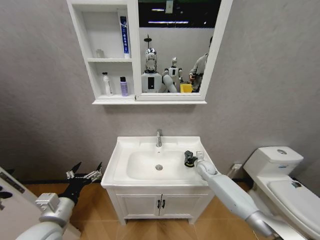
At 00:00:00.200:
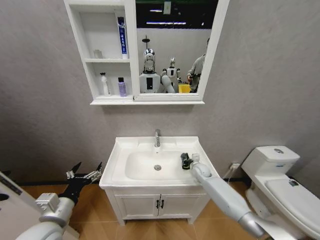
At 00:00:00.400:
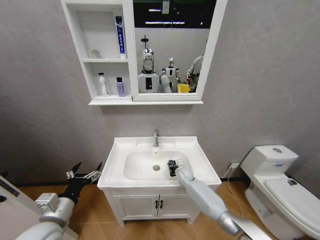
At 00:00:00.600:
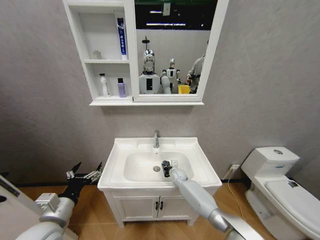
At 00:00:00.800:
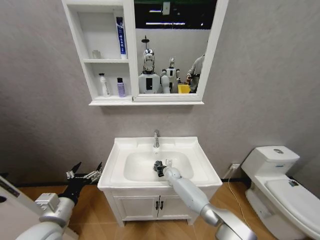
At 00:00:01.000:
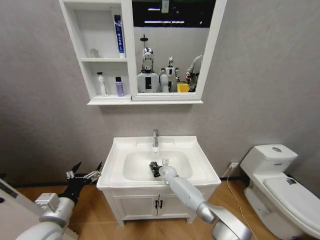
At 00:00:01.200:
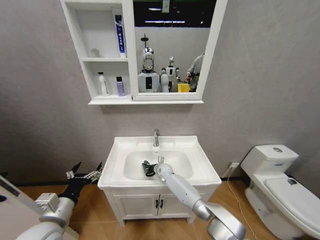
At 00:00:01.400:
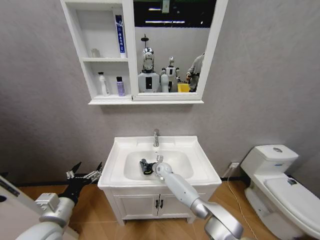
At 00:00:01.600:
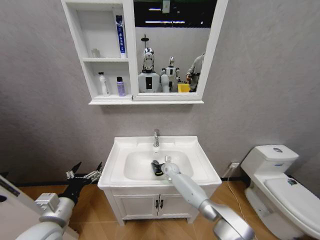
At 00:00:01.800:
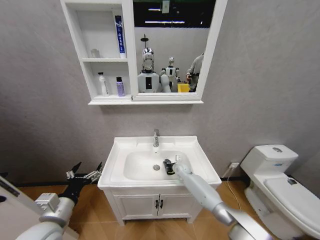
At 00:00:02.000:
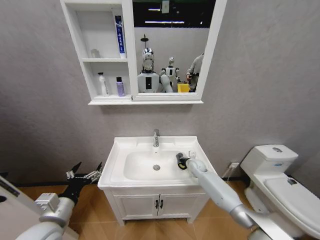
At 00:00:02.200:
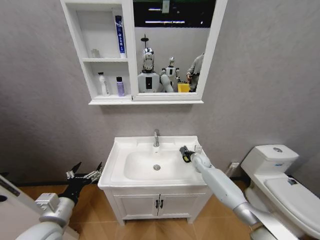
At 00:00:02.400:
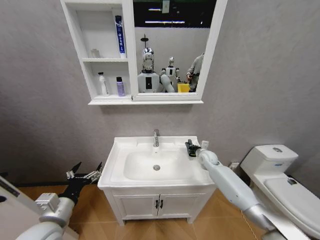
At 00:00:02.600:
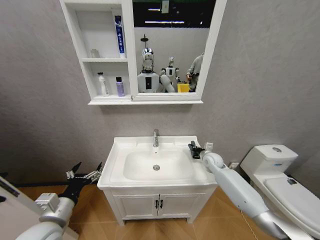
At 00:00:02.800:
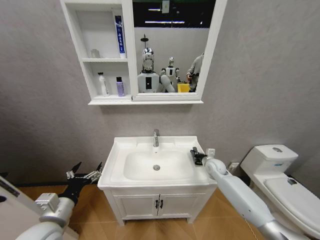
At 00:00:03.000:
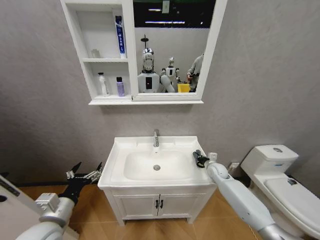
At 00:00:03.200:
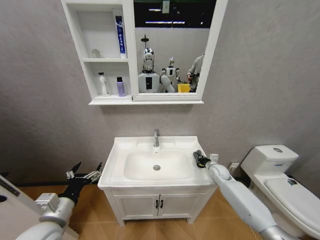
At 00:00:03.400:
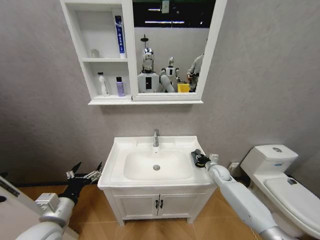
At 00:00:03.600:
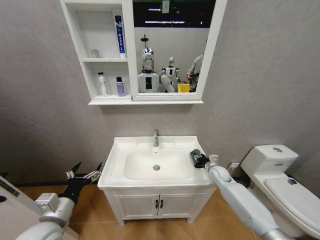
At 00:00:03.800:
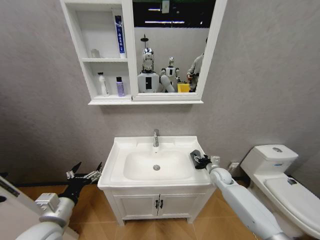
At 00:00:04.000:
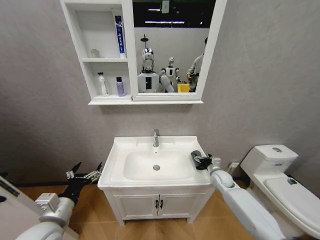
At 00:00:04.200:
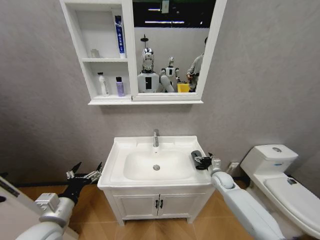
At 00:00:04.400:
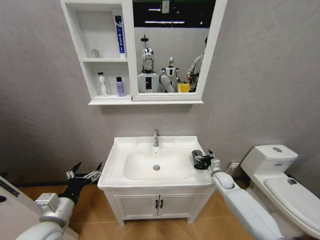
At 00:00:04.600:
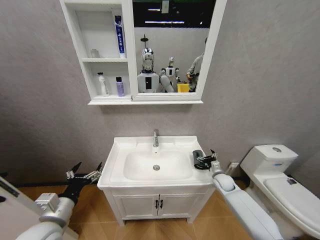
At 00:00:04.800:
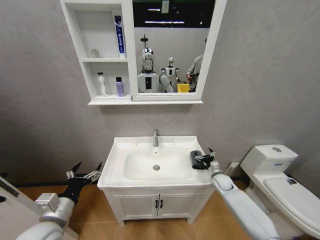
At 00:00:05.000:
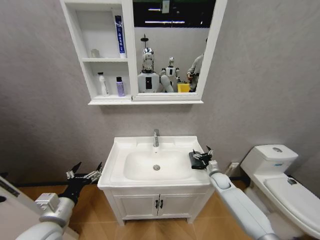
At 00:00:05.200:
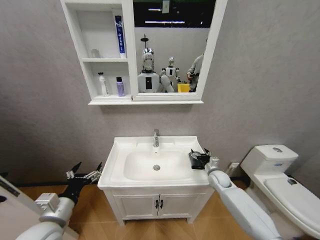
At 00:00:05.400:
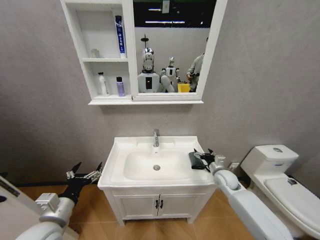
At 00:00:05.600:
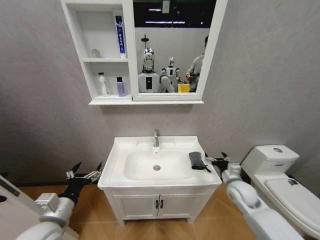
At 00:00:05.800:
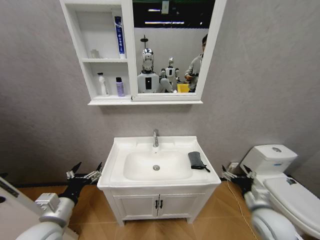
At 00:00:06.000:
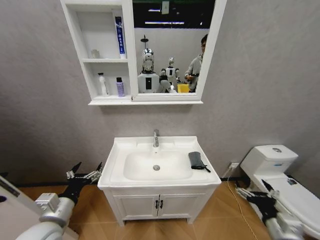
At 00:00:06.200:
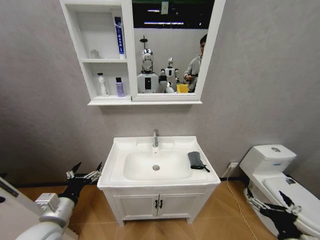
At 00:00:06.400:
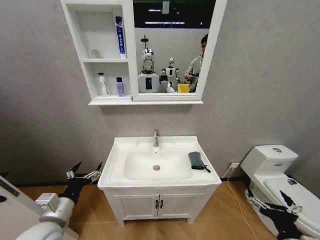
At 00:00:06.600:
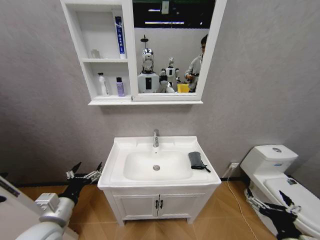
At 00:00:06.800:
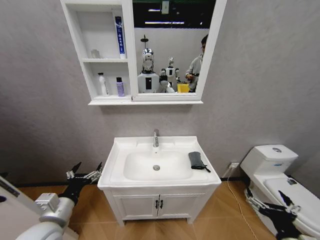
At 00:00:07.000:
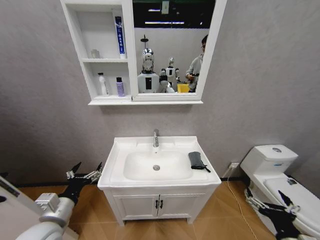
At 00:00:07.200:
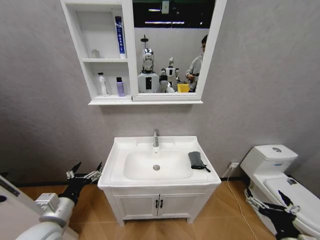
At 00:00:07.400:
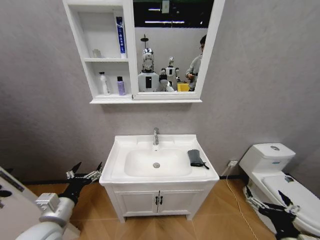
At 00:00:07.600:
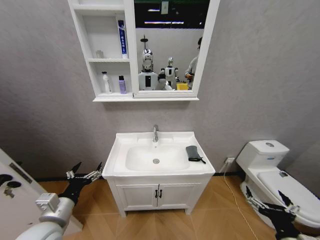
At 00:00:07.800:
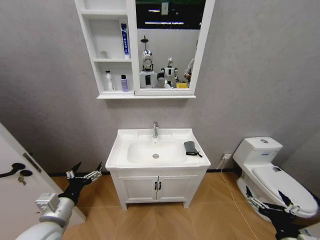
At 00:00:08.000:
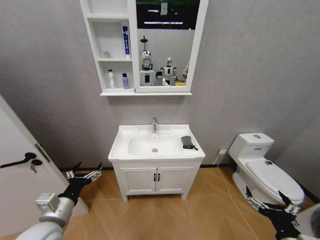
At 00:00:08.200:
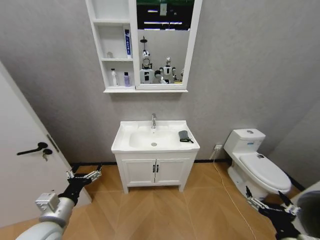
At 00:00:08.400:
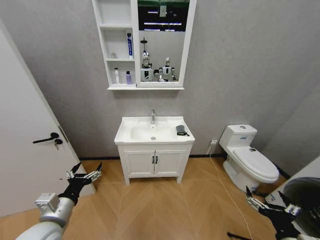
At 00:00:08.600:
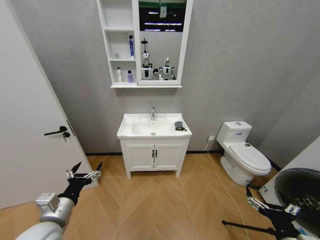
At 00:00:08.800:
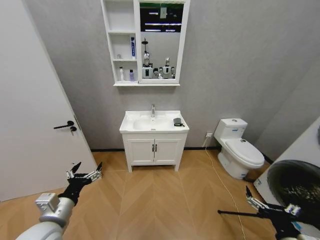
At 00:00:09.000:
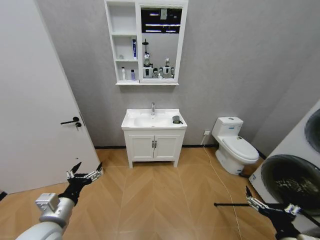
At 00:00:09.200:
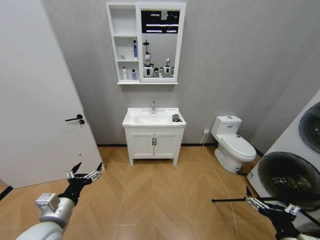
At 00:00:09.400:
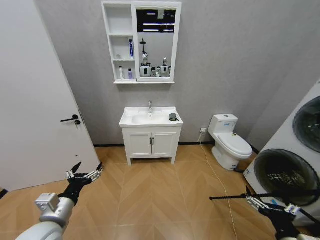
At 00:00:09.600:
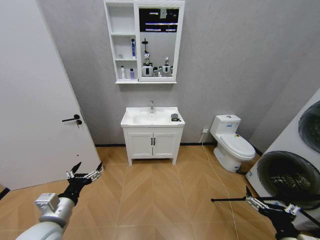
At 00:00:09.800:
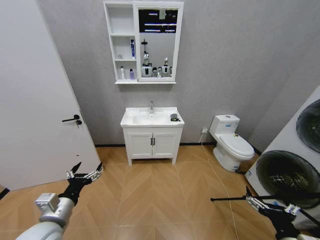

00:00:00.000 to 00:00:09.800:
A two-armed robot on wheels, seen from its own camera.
Task of the whole recording: Move facial cleanser and shampoo from washbasin to cabinet, then wipe washbasin with towel.
00:00:00.000 to 00:00:01.400: The right gripper is displaced to the left by roughly 25 cm.
00:00:01.400 to 00:00:02.800: The right gripper moves to the right, some 25 cm.
00:00:02.800 to 00:00:04.200: The right gripper ends up roughly 5 cm from where it was, and opens.
00:00:04.200 to 00:00:05.600: The right gripper is displaced backward and upward by about 15 cm.
00:00:05.600 to 00:00:07.000: The right gripper heads backward, covering roughly 25 cm.

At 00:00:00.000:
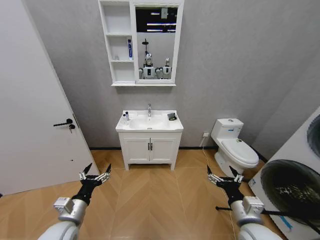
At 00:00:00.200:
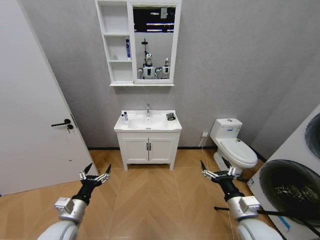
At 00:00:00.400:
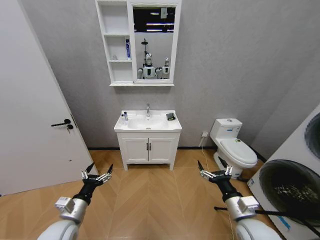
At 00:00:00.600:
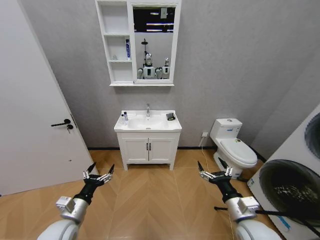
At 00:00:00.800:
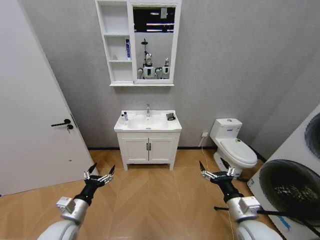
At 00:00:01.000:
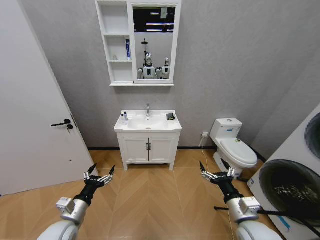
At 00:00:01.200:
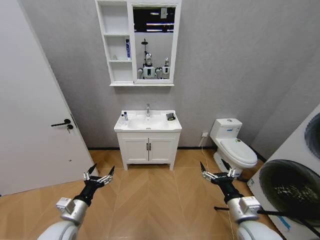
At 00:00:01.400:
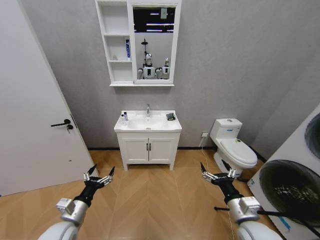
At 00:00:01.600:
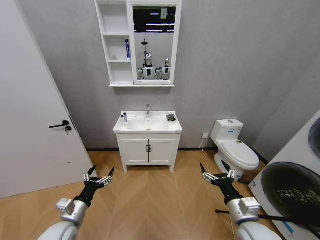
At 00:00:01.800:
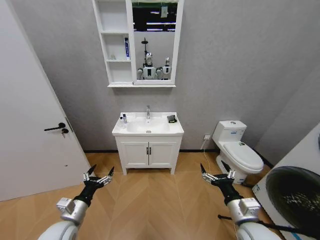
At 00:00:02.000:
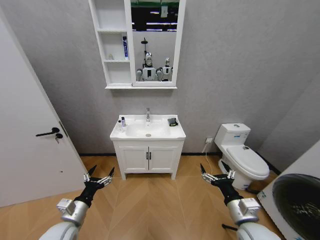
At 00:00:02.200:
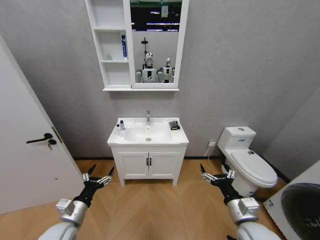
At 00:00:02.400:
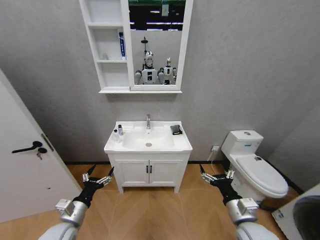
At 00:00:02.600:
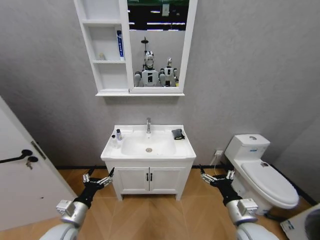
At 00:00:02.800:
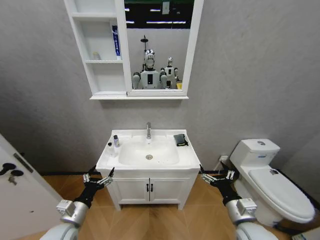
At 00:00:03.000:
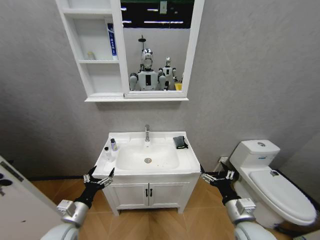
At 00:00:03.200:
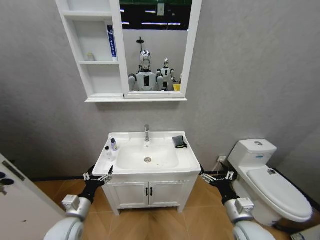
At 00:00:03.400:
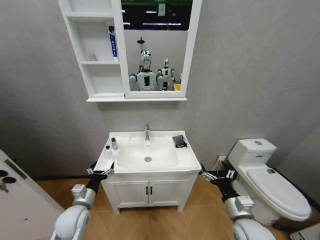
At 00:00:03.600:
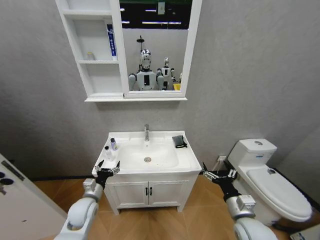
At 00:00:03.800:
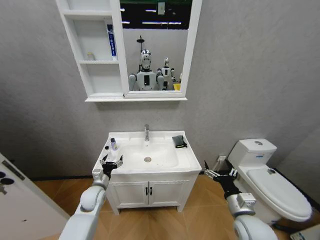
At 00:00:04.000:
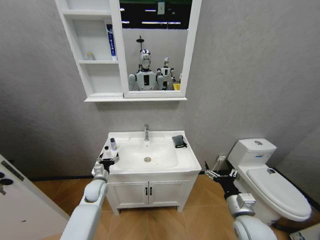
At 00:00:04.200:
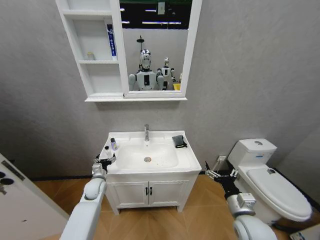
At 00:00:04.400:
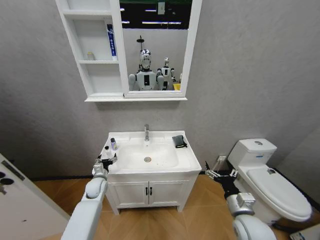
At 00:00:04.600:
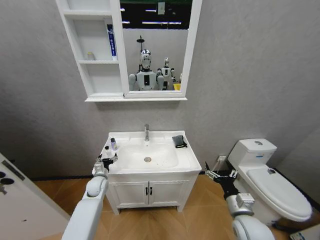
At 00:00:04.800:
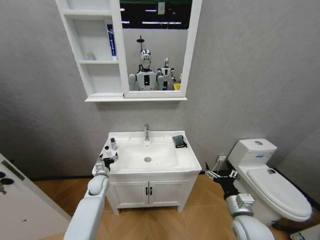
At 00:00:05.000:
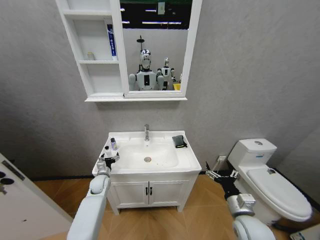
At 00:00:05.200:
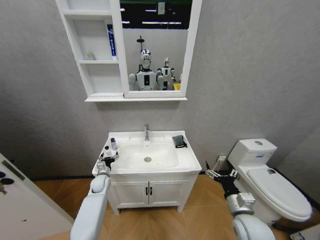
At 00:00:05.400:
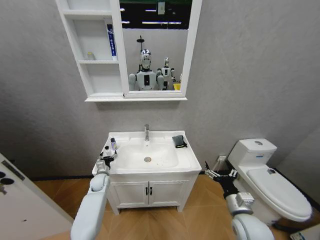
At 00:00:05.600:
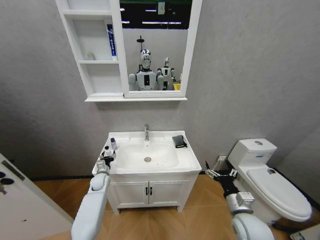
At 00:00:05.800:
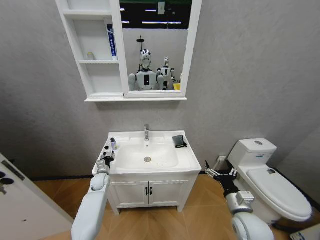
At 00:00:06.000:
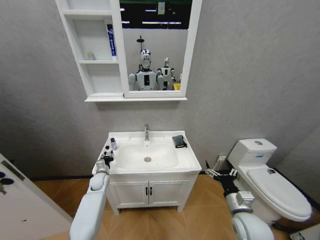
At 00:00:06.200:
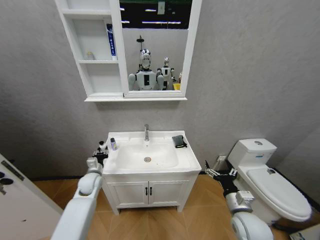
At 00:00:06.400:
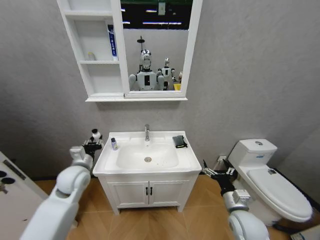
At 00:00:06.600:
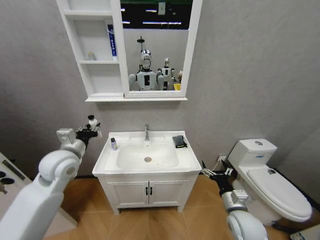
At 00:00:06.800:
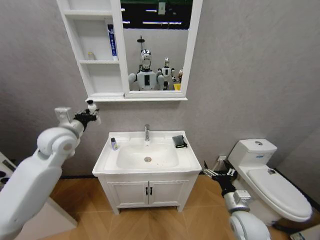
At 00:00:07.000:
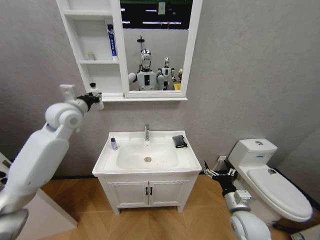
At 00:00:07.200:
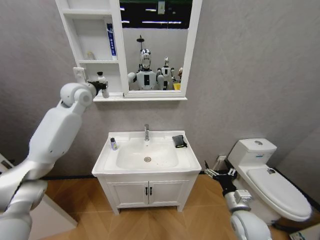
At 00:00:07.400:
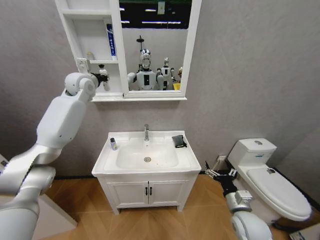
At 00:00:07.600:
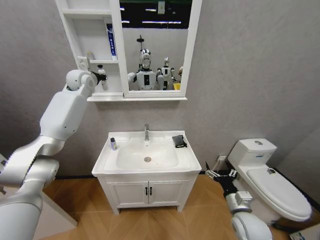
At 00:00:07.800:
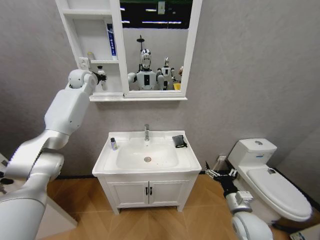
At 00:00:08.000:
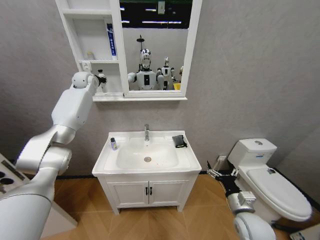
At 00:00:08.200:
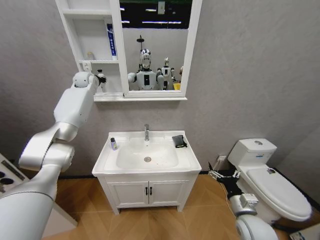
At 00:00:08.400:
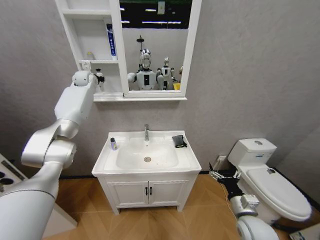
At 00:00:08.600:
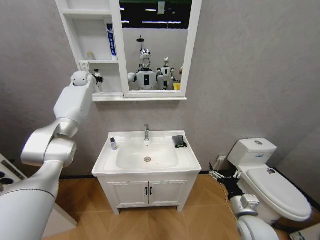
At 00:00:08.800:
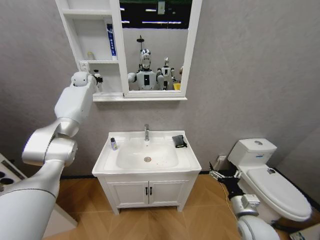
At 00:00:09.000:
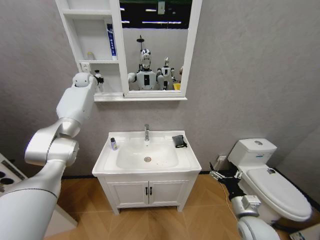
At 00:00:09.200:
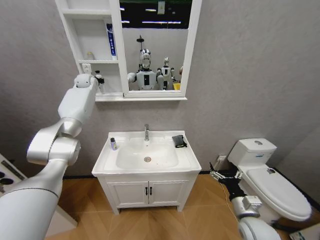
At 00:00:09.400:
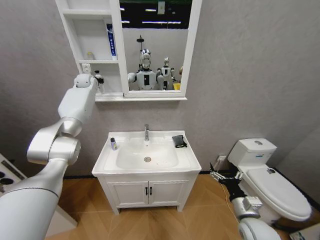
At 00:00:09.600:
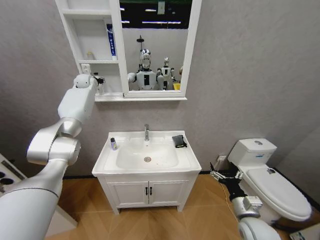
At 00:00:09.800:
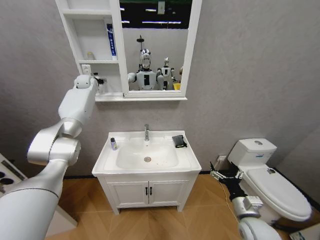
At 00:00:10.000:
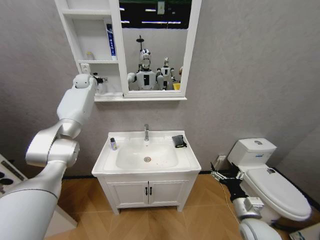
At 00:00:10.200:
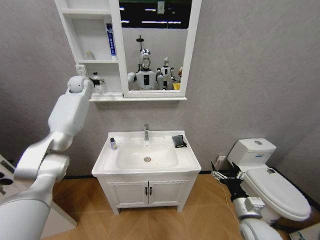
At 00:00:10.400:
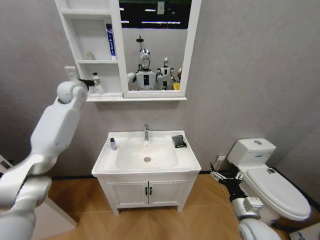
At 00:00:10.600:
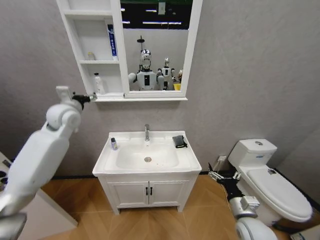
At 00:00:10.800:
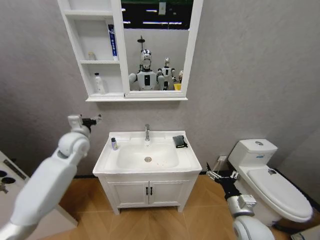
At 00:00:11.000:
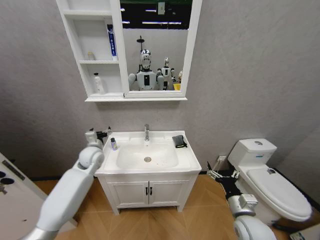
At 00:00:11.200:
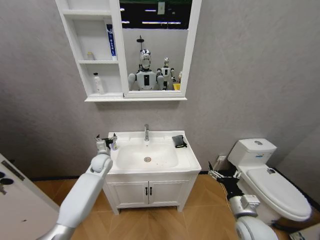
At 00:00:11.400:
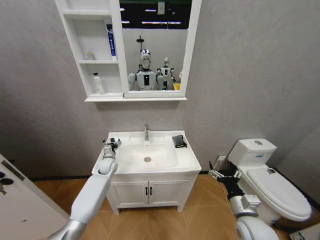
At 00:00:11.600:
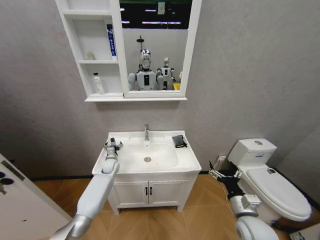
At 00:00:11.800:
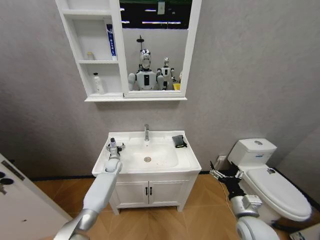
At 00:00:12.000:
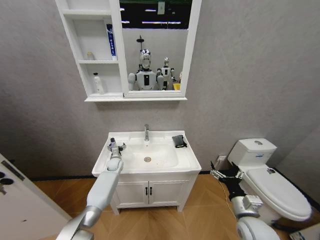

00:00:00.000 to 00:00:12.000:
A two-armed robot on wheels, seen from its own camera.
Task of the whole recording: Move facial cleanser and shampoo from washbasin to cabinet, then wipe washbasin with towel.
00:00:03.000 to 00:00:04.400: The left gripper travels forward by roughly 20 cm.
00:00:04.400 to 00:00:06.000: The left gripper closes its fingers.
00:00:06.000 to 00:00:07.600: The left gripper shifts about 50 cm upward and forward.
00:00:07.600 to 00:00:09.000: The left gripper shifts about 10 cm forward.
00:00:09.000 to 00:00:10.400: The left gripper is displaced backward by roughly 15 cm, and opens its fingers.
00:00:10.400 to 00:00:12.000: The left gripper goes about 40 cm downward.
